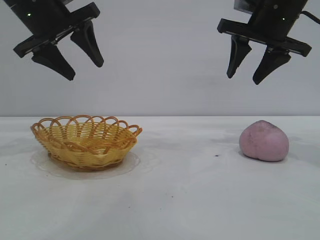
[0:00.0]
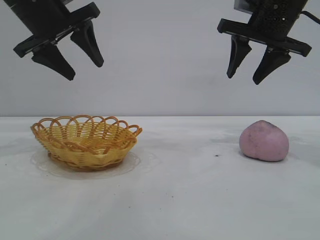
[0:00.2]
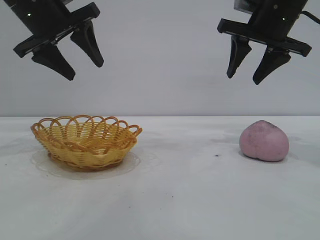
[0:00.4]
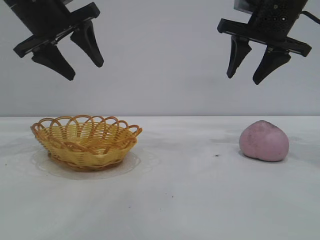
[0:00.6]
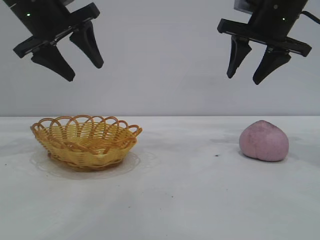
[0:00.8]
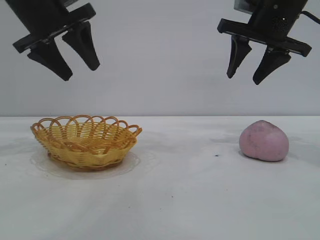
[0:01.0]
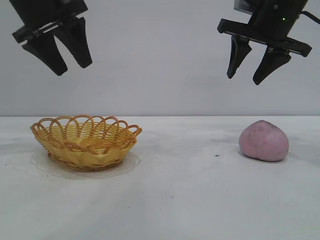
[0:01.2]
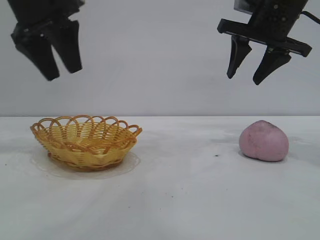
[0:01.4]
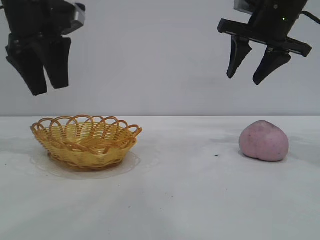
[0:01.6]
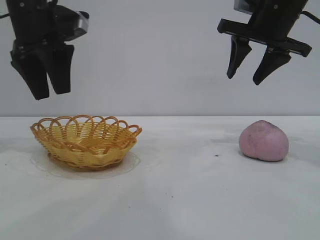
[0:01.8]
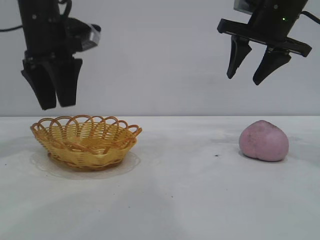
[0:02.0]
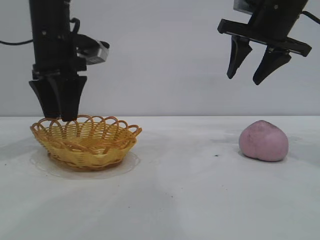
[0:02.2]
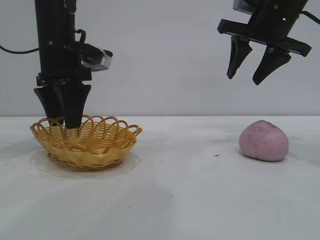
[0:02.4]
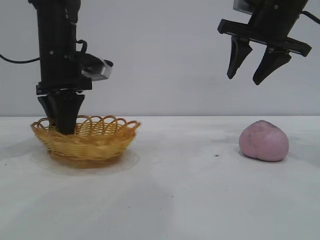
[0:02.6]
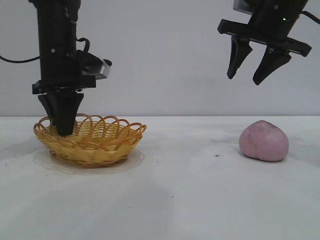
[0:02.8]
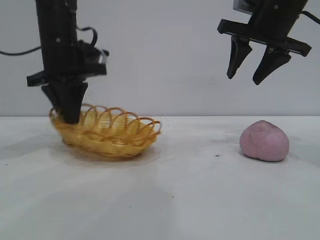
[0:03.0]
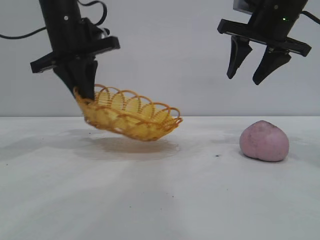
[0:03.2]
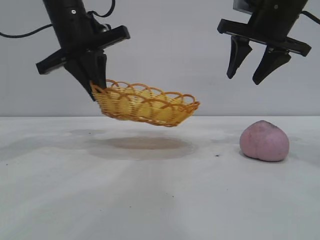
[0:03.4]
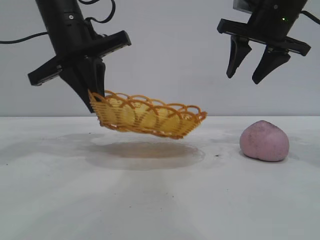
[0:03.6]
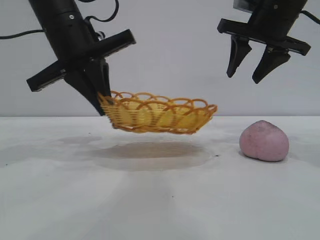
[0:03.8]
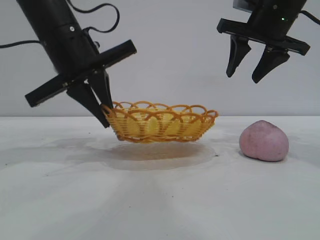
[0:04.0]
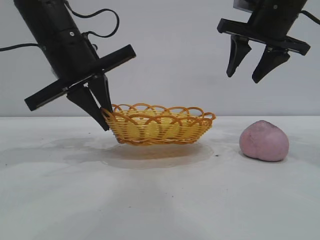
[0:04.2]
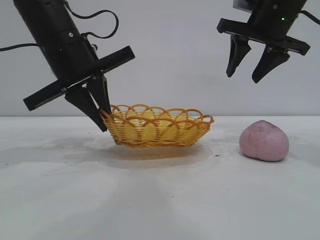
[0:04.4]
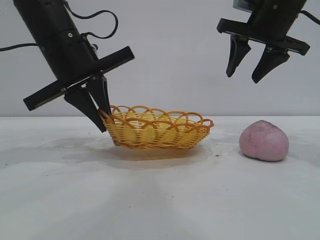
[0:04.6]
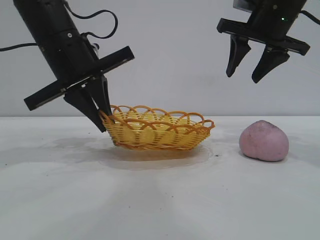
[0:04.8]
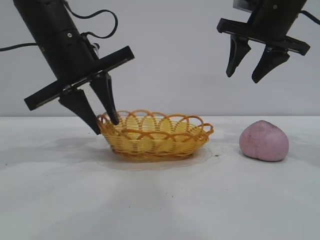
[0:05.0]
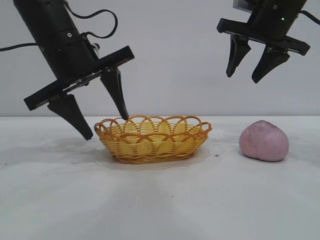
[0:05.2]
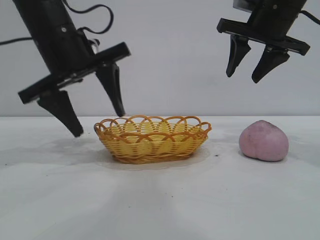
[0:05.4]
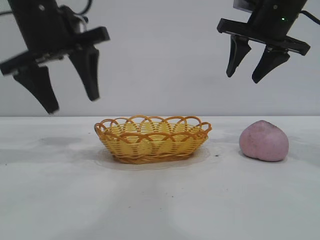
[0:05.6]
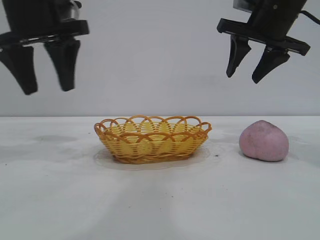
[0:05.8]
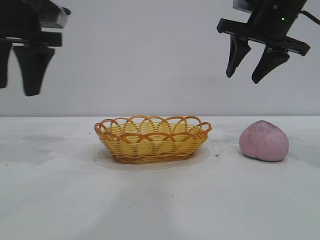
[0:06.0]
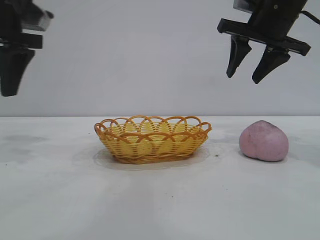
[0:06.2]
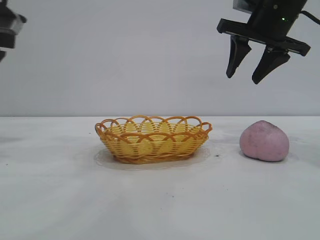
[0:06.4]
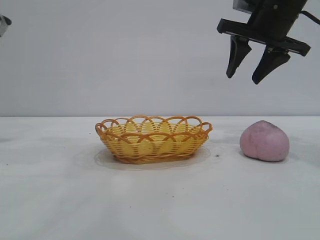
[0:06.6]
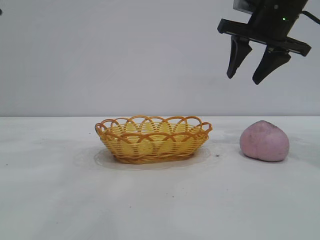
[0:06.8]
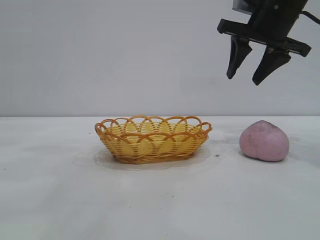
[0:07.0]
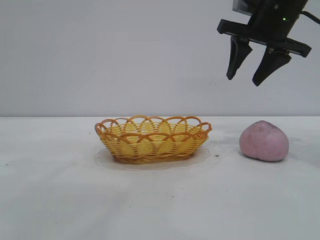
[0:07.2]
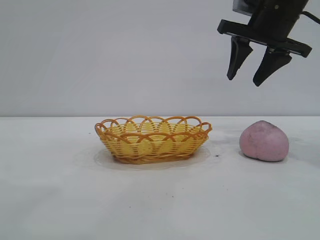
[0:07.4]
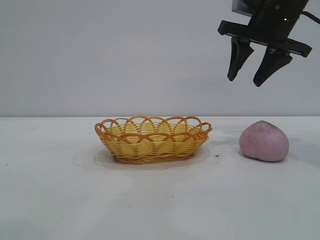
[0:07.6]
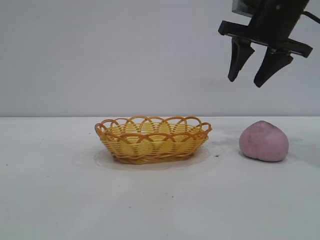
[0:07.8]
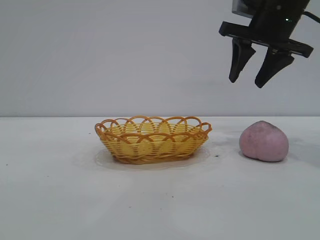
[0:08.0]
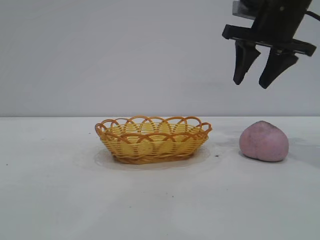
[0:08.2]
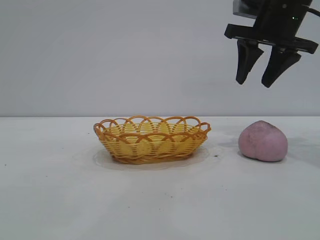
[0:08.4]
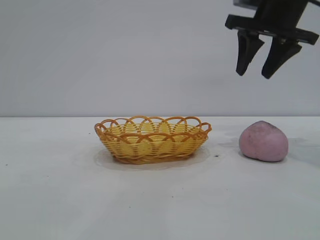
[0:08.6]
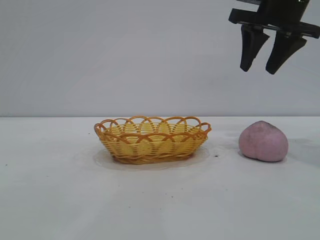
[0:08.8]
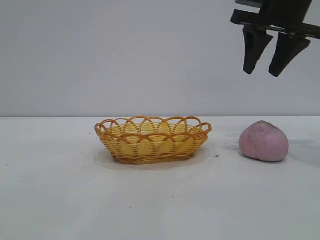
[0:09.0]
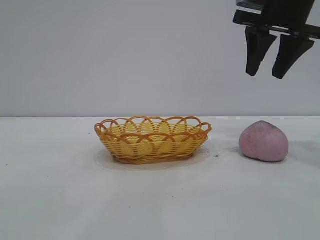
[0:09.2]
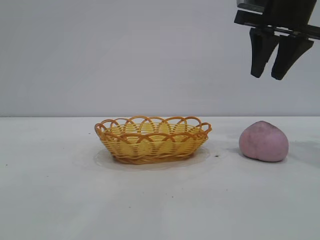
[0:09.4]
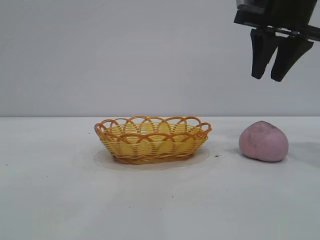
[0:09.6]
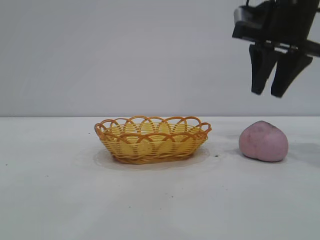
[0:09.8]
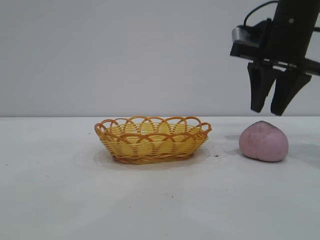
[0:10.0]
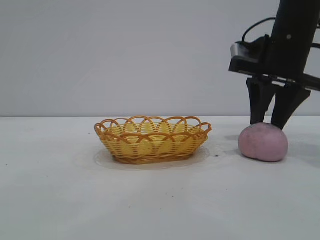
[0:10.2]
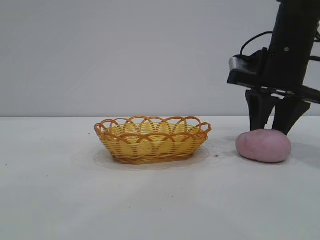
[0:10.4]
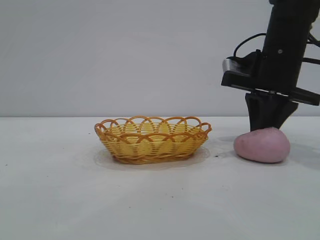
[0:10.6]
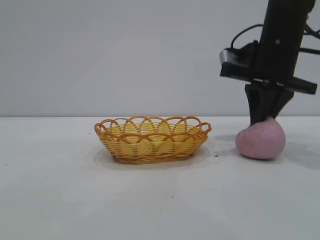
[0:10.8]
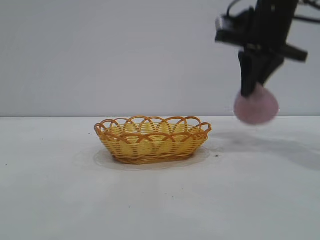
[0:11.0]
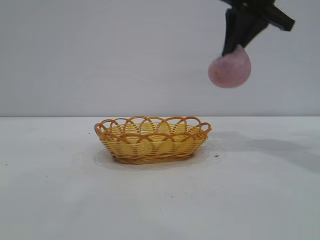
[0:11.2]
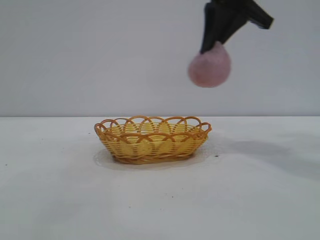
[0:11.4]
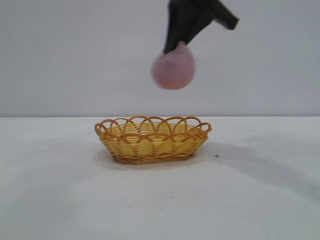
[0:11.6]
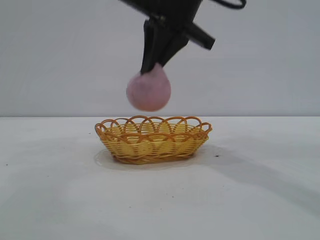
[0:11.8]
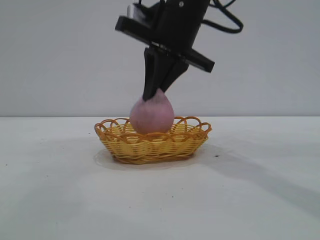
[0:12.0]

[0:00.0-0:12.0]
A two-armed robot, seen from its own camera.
Task of the whole recording: pick up the peach and put it into the basket.
Step, 0:00.0 to 0:05.6: Move the basket to the center of view.
Step, 0:05.8 to 0:11.0: Pick up the peach.

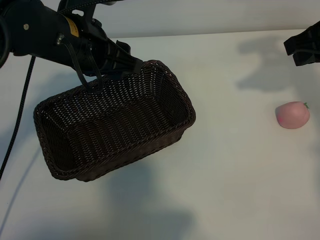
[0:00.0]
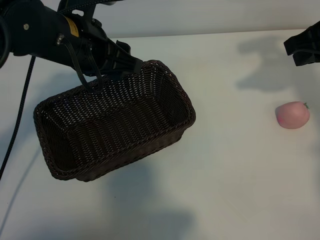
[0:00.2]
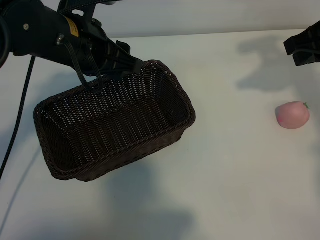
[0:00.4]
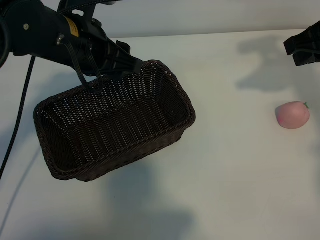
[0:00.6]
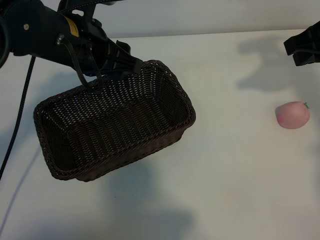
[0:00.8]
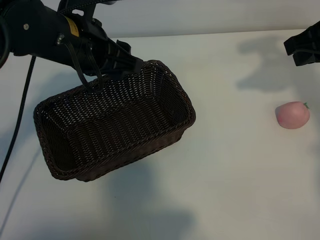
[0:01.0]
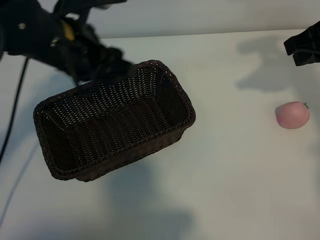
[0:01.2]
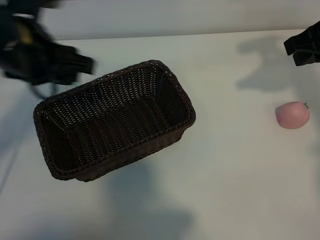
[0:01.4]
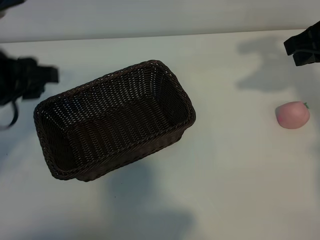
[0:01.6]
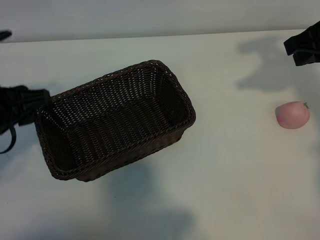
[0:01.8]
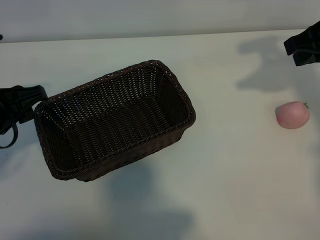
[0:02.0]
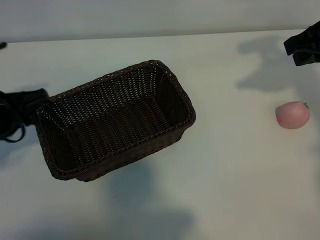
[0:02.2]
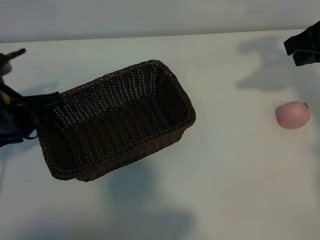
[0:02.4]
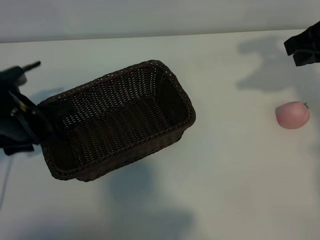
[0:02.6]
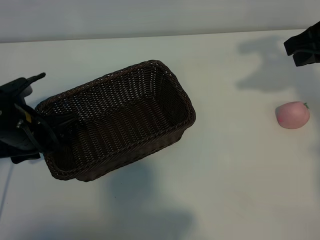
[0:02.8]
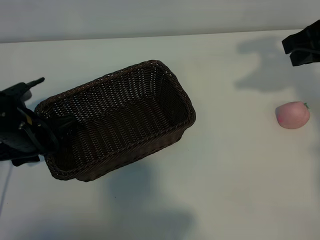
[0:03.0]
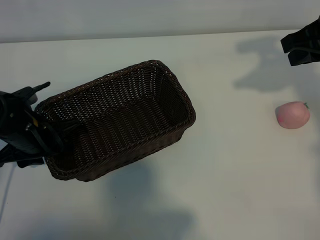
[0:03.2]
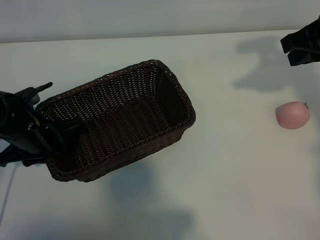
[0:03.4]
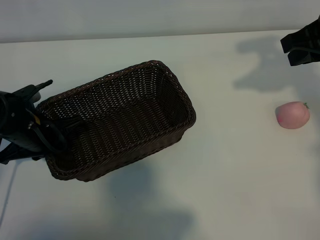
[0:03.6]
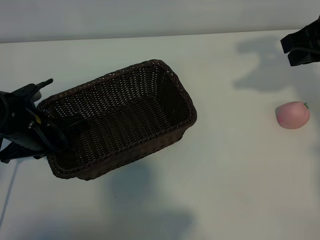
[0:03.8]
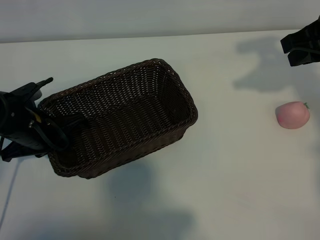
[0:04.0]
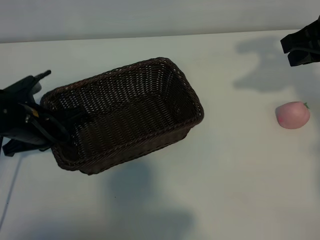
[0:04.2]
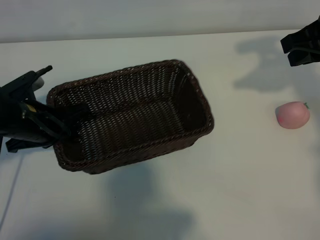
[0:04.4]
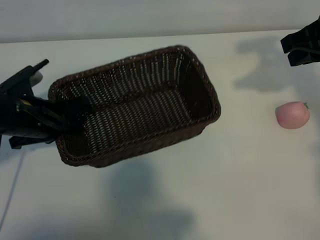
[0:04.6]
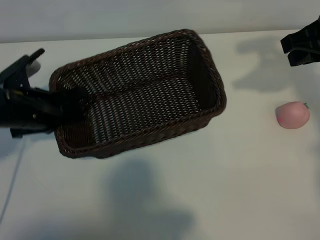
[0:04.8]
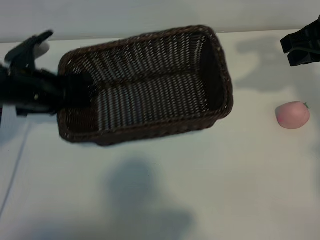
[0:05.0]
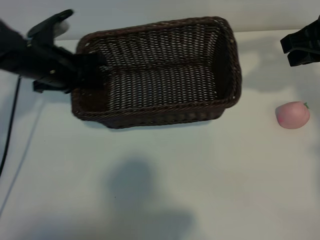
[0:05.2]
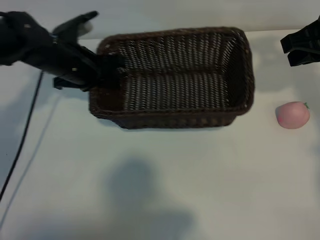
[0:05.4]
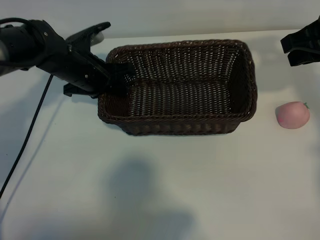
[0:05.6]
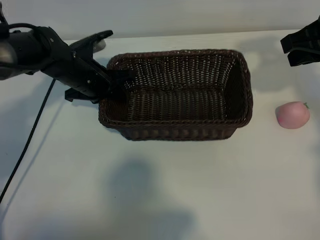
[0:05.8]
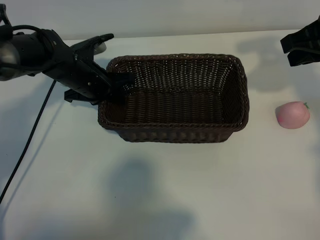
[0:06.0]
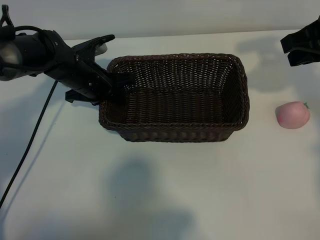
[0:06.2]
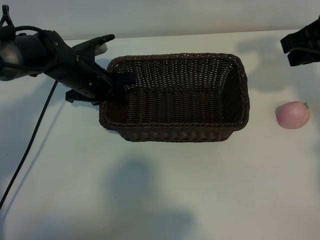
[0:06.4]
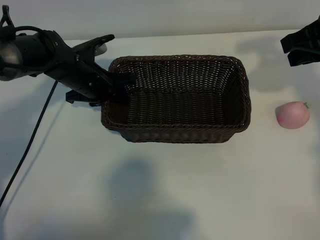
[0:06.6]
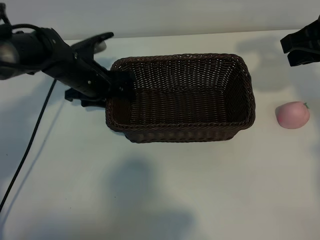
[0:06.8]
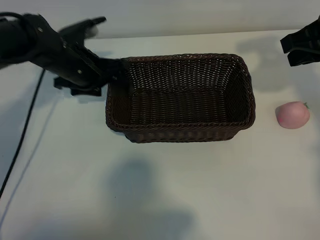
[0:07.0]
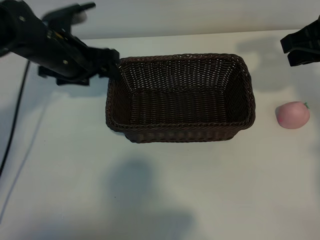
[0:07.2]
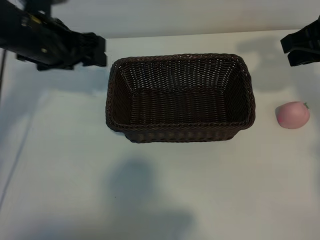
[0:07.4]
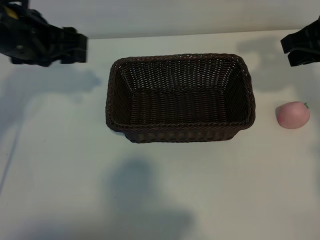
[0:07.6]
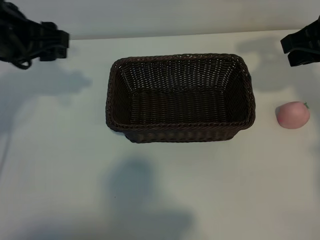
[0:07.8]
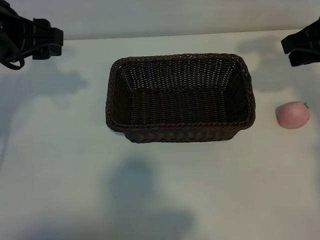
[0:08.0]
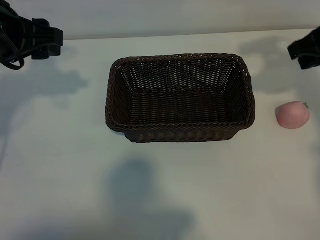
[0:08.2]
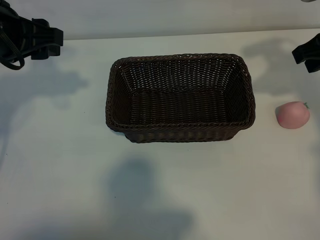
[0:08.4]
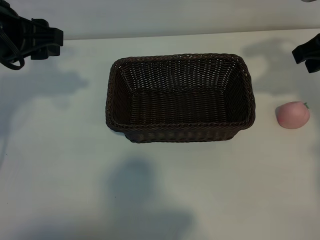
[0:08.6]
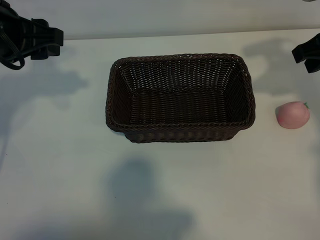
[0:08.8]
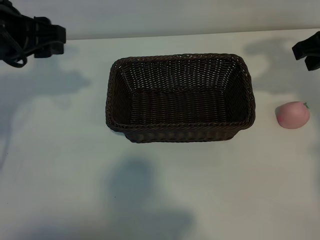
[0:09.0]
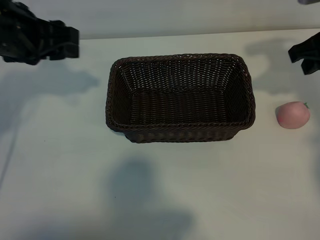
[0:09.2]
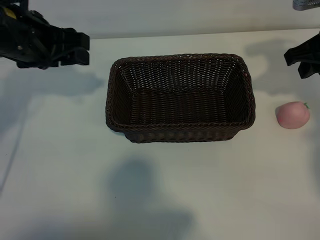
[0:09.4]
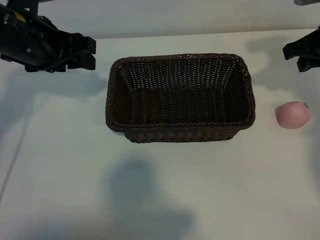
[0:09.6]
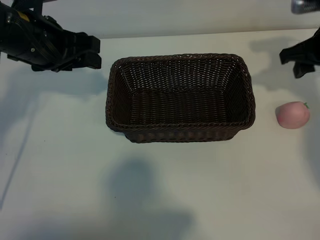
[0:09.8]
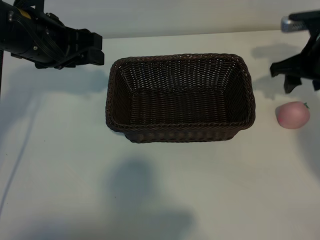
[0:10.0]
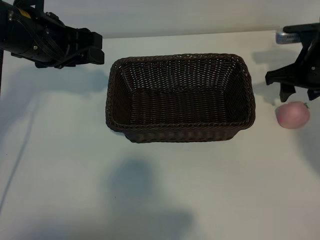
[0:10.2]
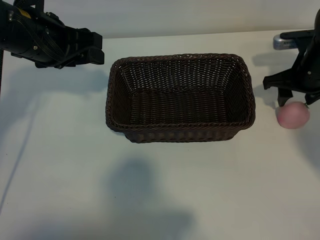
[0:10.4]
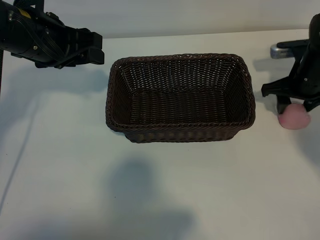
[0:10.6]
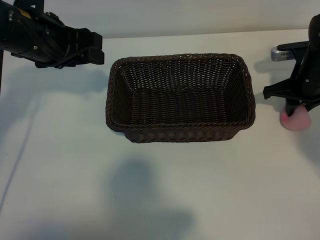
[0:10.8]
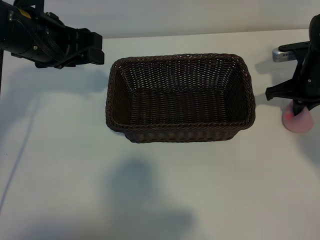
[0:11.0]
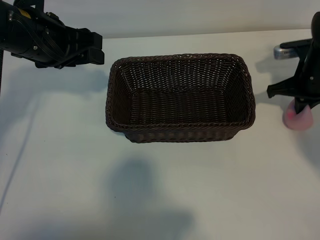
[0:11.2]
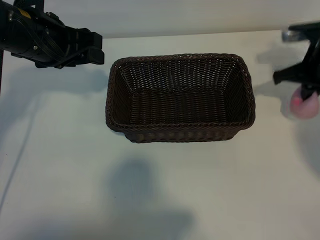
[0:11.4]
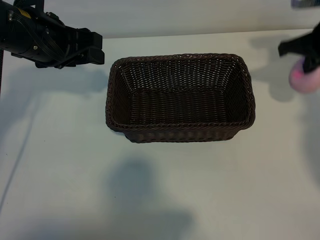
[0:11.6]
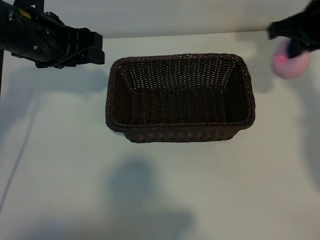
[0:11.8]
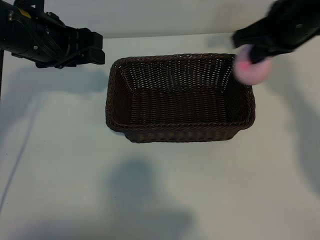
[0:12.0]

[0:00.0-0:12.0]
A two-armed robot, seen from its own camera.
Task of the whole recording: pick up the peach and put it into the basket.
Step, 0:01.0 to 0:03.6: Grasp the basket with left gripper.
Step, 0:04.0 to 0:06.8: Place the basket in the center of view with left gripper.
Step, 0:07.2 to 0:10.8: Grasp the peach with right gripper.
